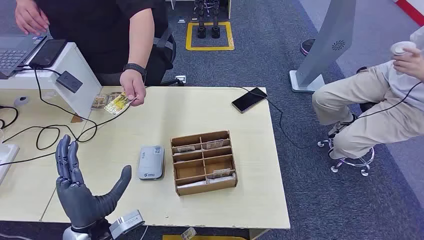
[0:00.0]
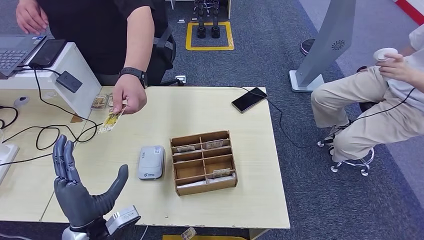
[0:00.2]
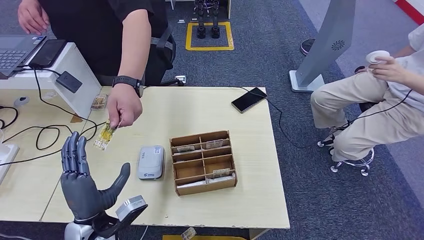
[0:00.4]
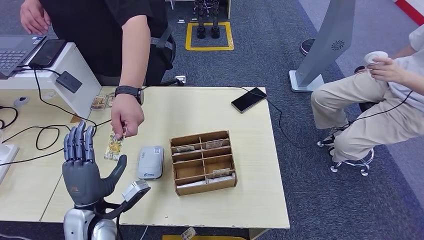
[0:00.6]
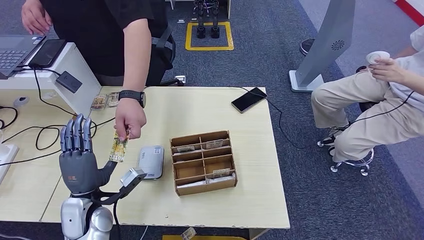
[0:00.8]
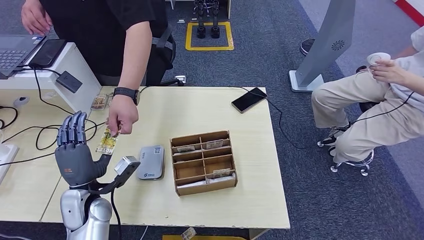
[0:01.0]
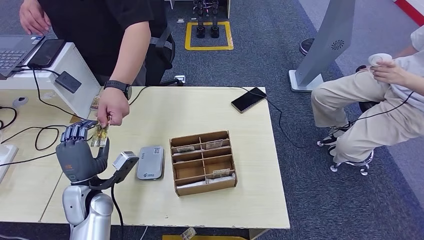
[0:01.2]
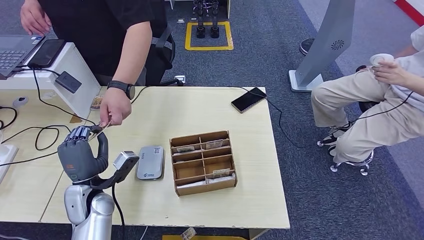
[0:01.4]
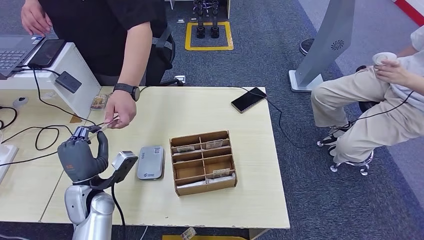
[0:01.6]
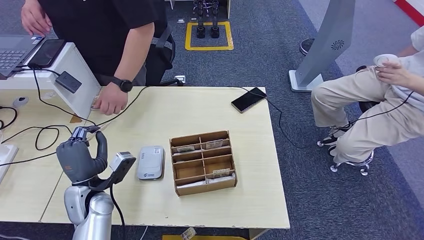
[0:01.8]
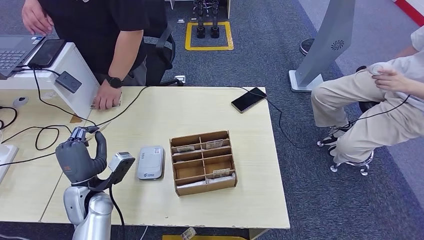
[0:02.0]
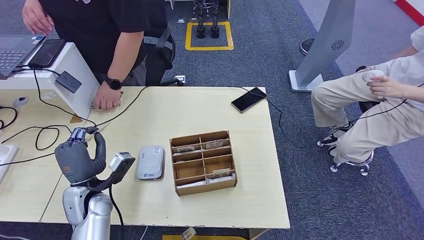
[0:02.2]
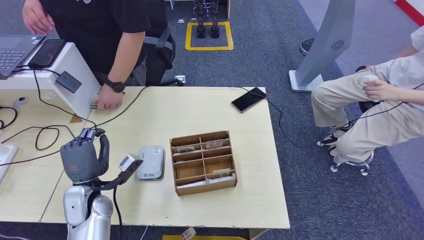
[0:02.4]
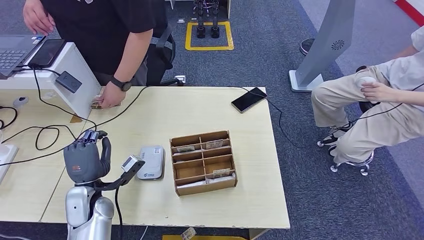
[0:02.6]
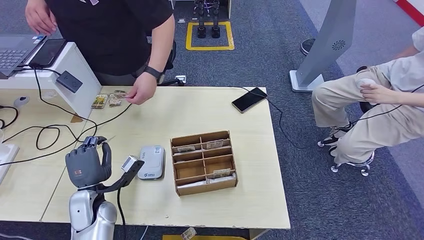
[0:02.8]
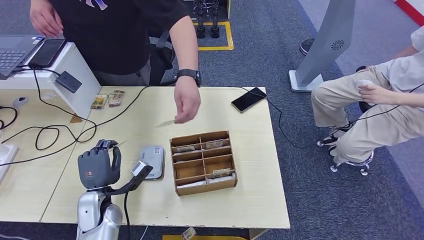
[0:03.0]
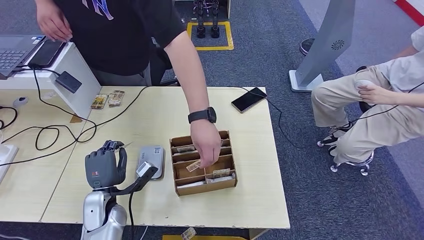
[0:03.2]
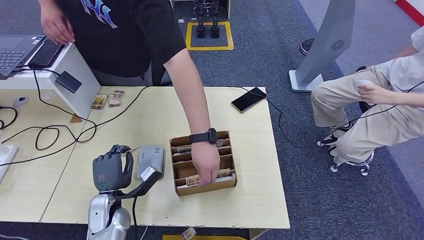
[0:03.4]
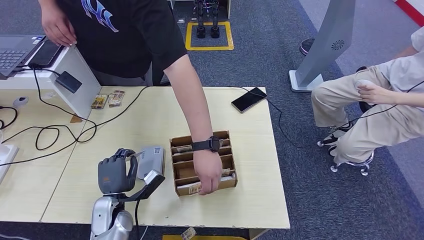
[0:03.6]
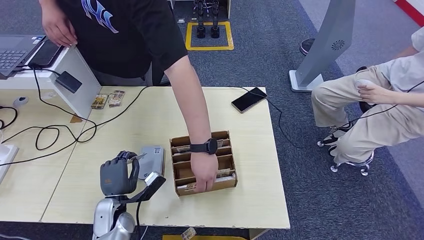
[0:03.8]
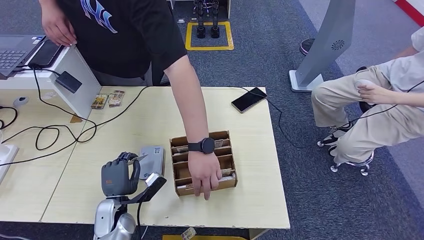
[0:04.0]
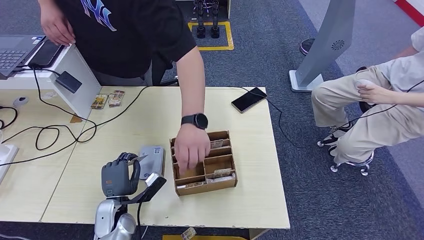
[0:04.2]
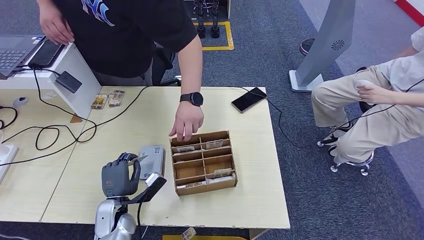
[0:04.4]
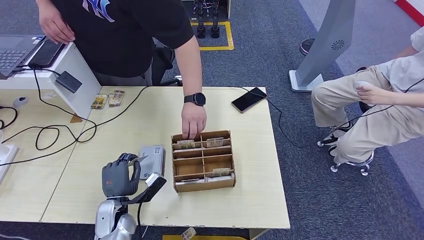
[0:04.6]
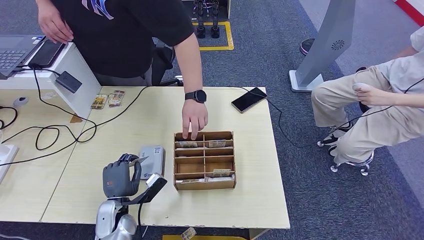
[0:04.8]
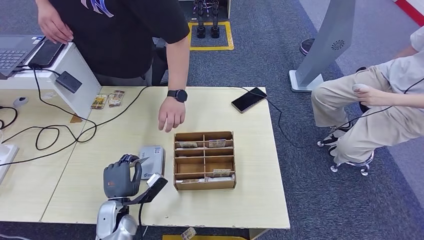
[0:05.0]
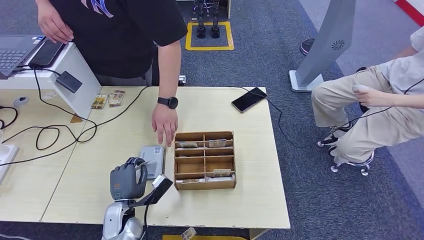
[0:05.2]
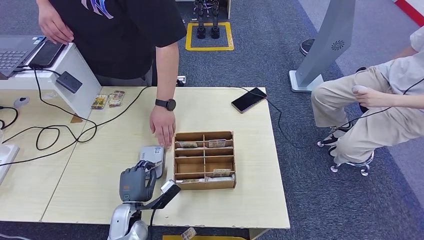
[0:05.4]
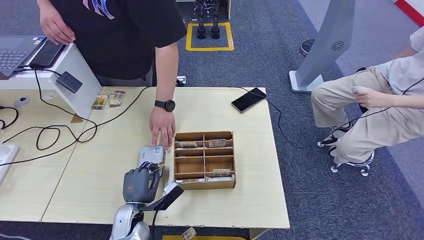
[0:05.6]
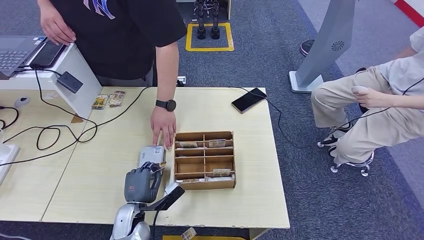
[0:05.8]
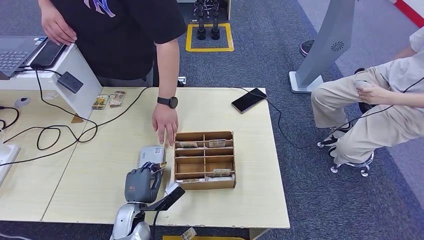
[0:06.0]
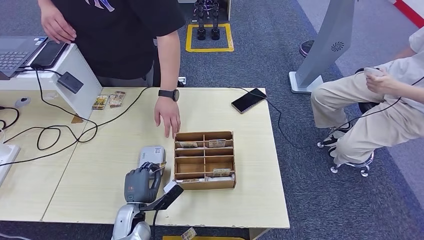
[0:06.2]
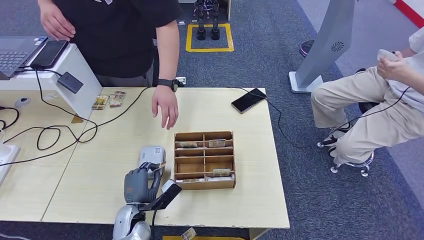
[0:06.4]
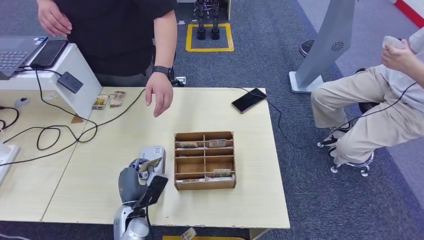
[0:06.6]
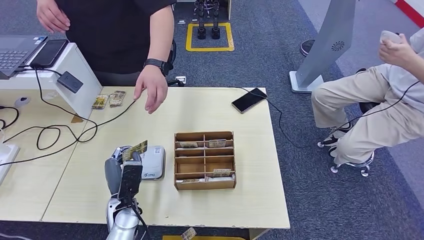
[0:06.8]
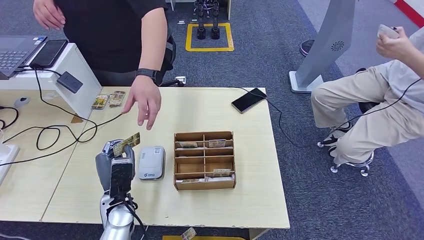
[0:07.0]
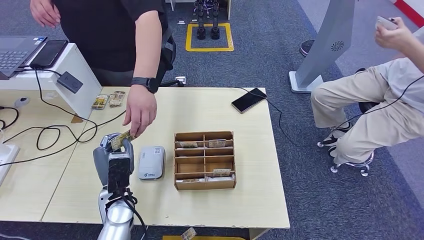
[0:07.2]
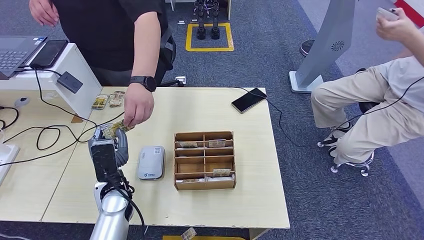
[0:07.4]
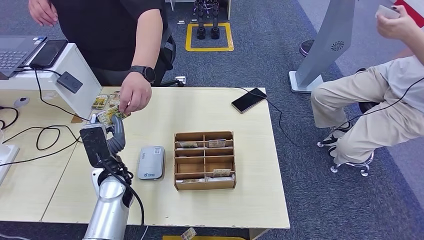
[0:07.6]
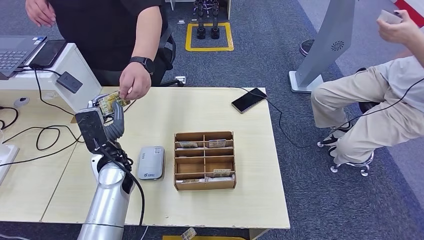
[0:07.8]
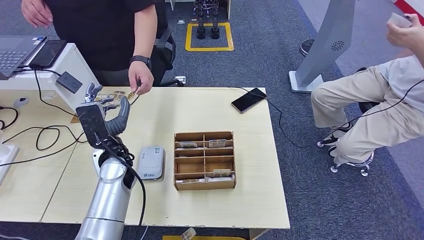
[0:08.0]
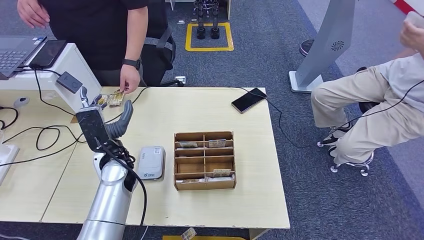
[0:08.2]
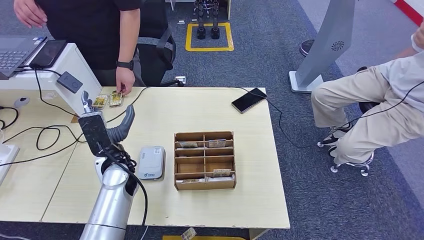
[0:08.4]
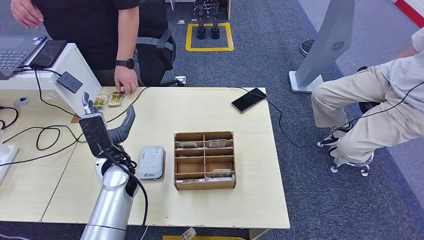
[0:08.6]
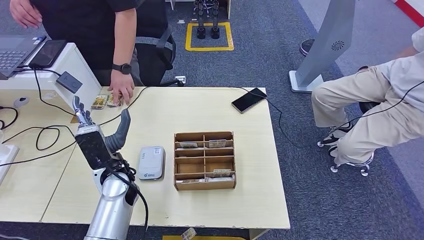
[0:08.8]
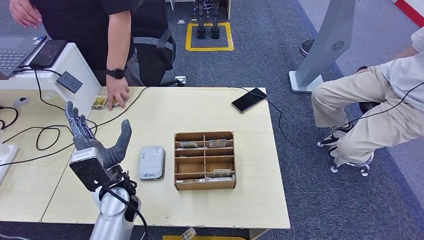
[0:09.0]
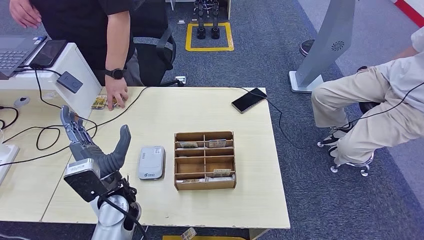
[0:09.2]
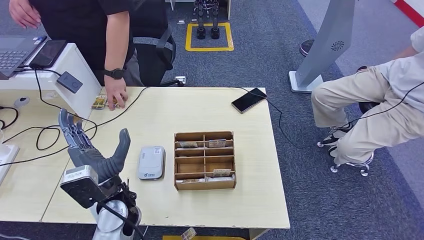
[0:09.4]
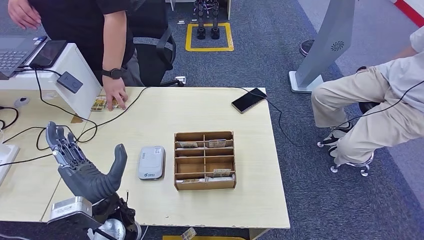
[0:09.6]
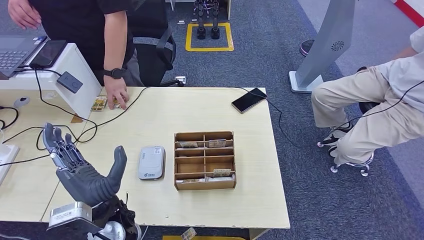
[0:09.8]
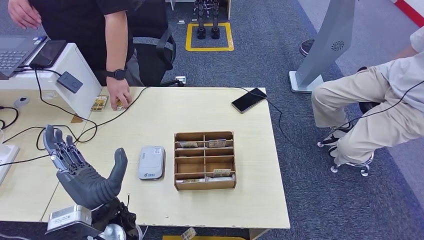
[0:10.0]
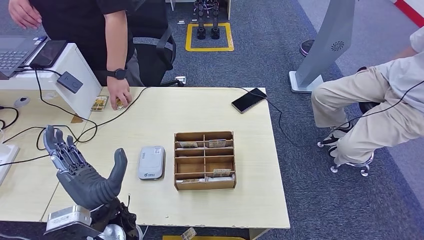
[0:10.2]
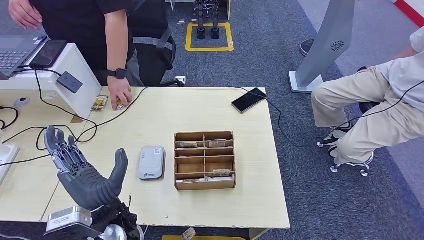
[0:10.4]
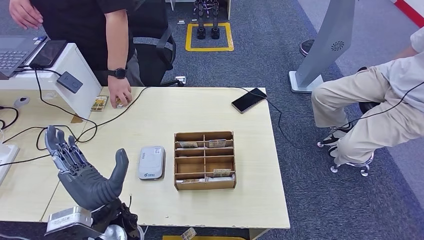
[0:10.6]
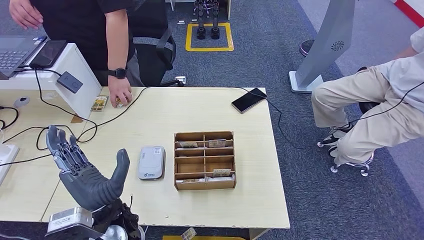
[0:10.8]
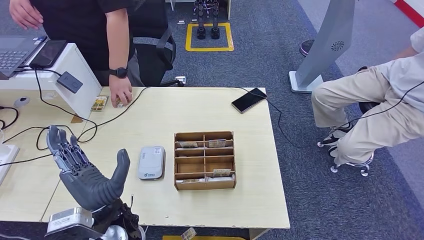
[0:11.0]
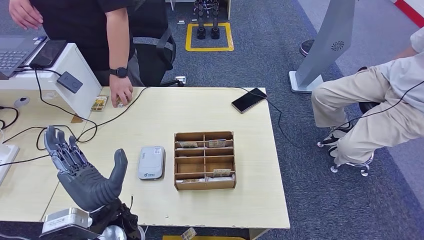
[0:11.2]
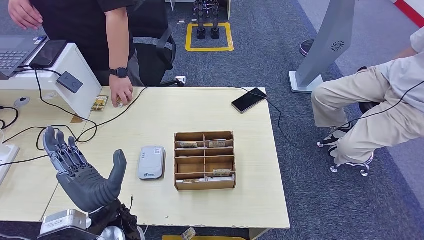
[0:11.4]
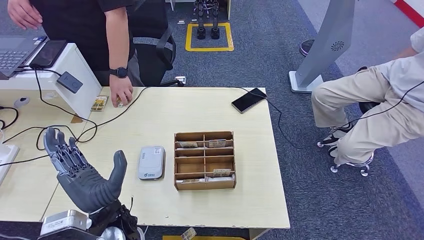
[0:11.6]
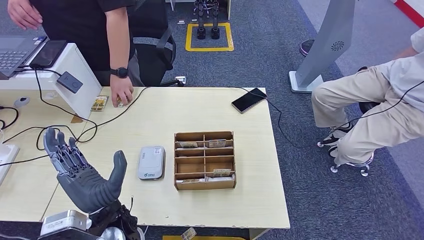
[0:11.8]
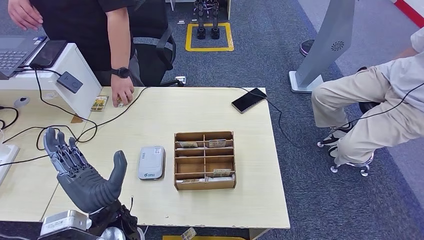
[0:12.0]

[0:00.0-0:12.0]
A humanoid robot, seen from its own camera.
Step, 0:00.0 to 0:02.0: Take the ID card from the person's hand.
Step, 0:02.4 to 0:06.4: Place the ID card on the card reader.
Step, 0:06.6 to 0:08.6: Hand the ID card to the person.
0:01.6 to 0:03.0: The hands move only a little.
0:03.0 to 0:04.4: The left hand shifts by some 5 cm.
0:04.4 to 0:06.0: The left hand changes place by roughly 5 cm.
0:06.0 to 0:07.6: The left hand goes about 15 cm upward and forward.
0:07.6 to 0:09.0: The hands move only a little.
0:09.0 to 0:10.4: The left hand shifts approximately 10 cm backward.
0:10.4 to 0:12.0: Neither hand changes place.

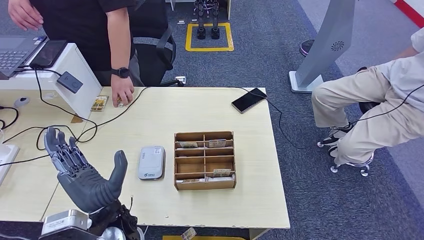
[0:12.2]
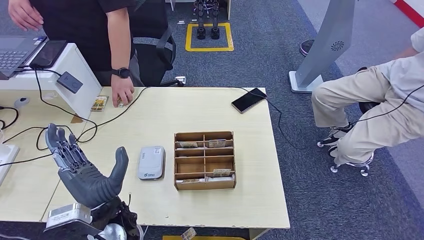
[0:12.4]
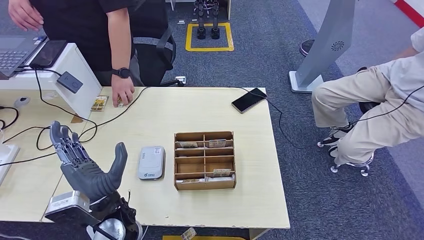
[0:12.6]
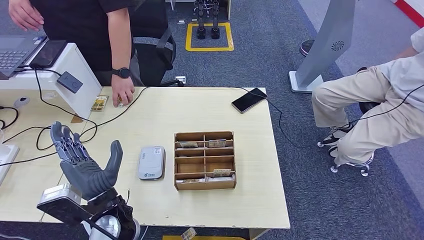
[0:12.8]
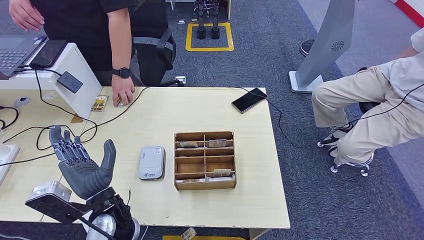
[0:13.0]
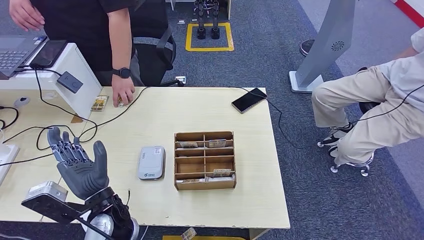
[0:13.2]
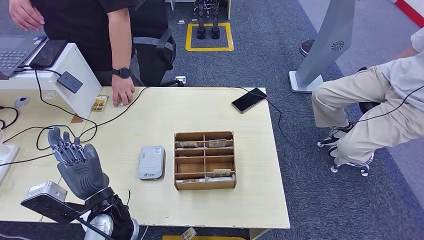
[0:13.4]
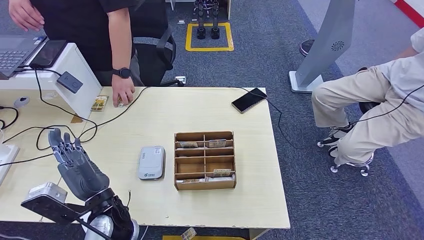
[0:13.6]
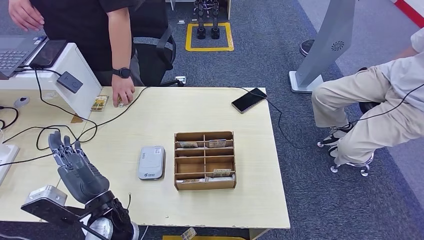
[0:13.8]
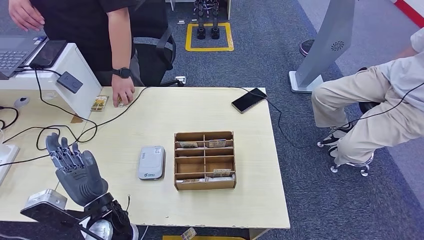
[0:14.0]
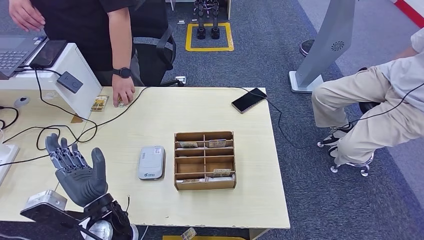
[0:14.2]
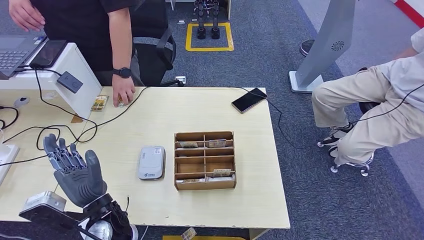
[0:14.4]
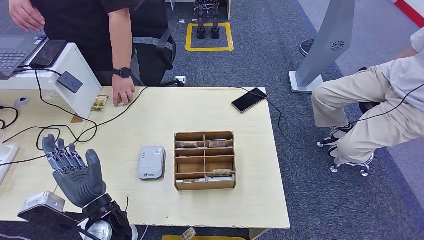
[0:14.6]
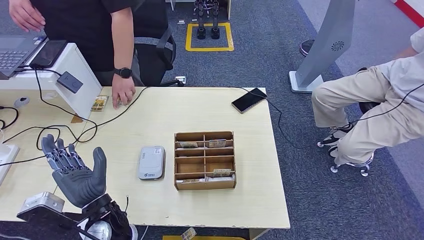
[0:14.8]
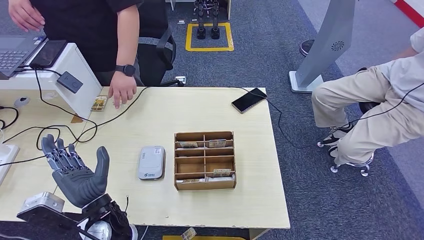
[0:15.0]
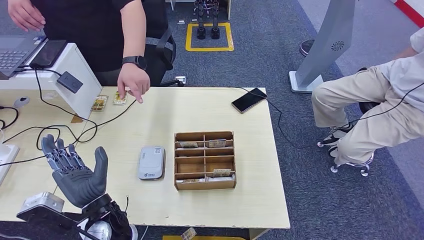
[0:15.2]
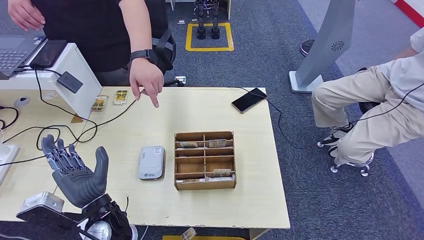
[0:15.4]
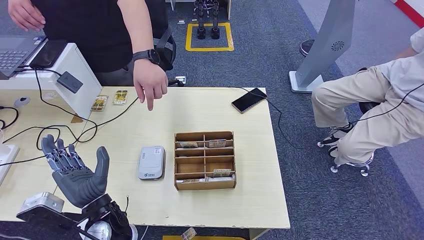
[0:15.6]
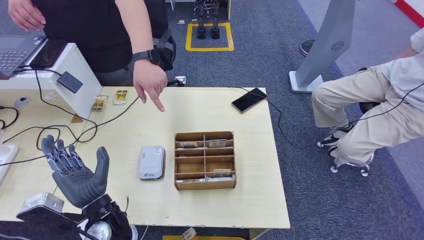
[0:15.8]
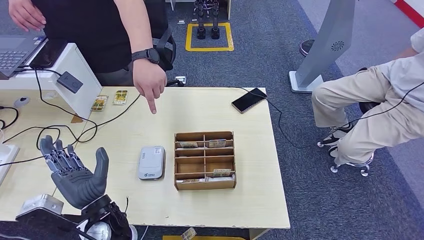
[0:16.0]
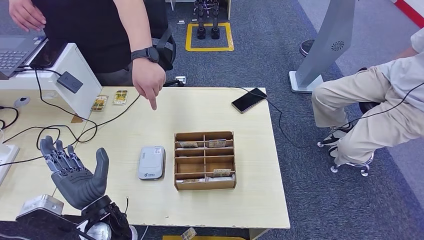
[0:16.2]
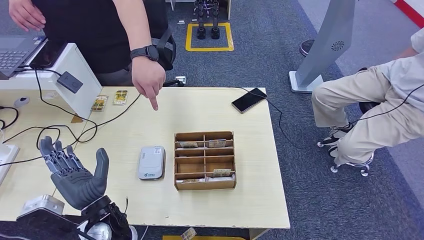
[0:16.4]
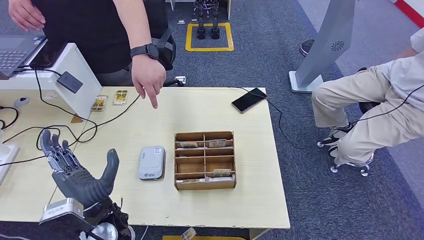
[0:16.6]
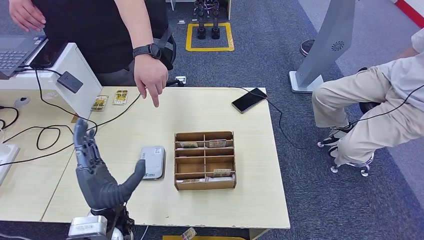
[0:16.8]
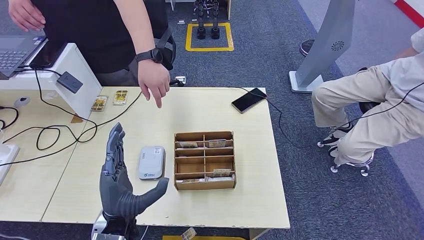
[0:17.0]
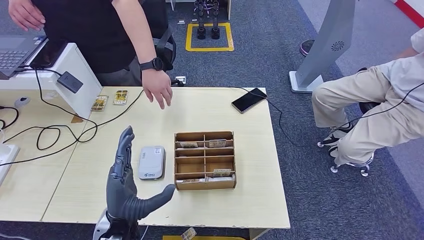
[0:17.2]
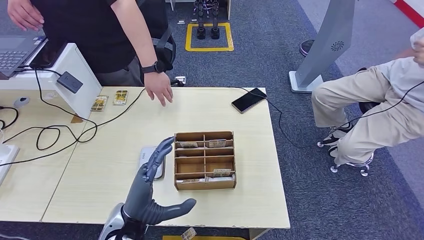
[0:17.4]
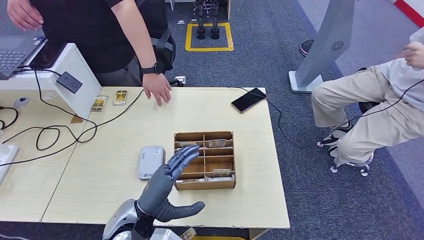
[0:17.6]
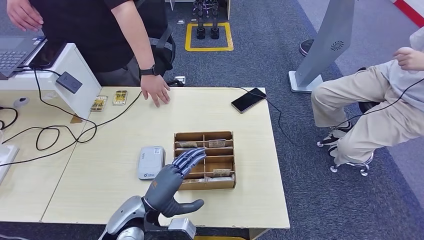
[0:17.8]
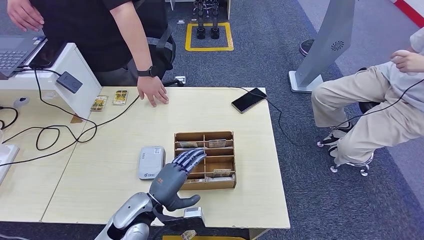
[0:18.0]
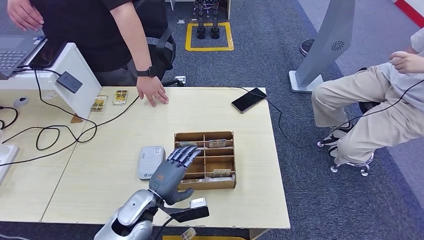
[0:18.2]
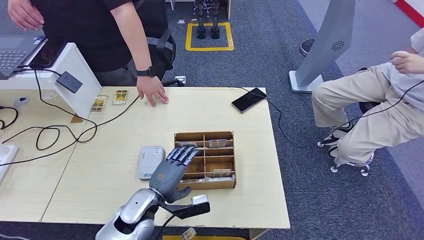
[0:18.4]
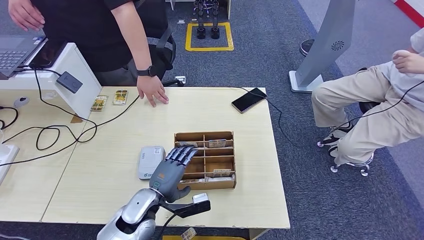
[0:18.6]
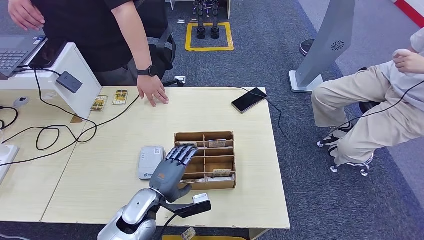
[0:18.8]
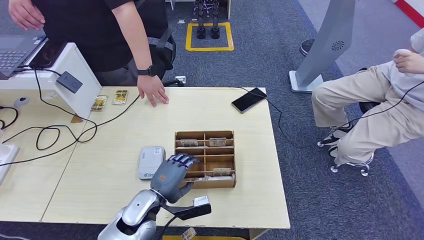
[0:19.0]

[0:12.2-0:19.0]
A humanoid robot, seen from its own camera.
0:12.2 to 0:13.6: The hands stay close to where they were, moving slightly.
0:13.6 to 0:16.2: Both hands stay about where they are.
0:17.6 to 0:19.0: The left hand travels downward by approximately 5 cm.
